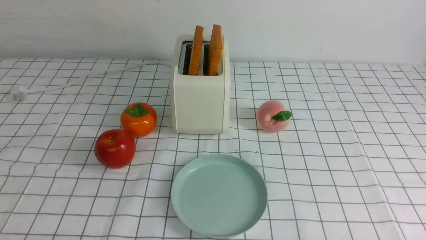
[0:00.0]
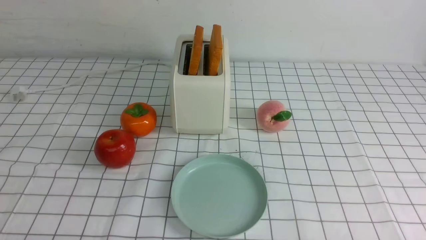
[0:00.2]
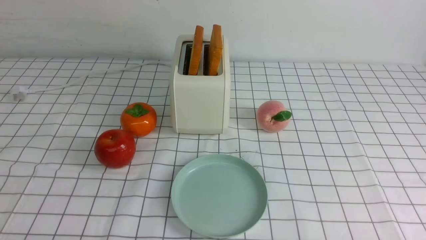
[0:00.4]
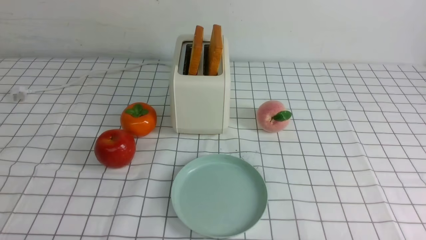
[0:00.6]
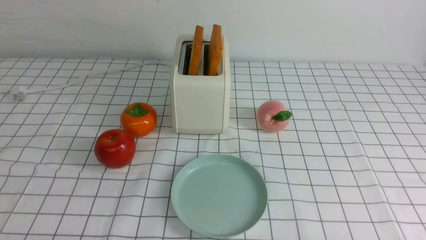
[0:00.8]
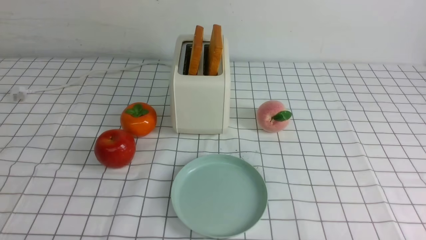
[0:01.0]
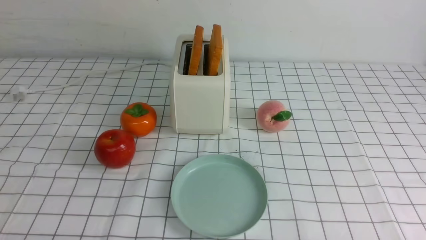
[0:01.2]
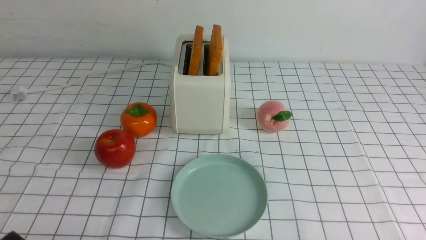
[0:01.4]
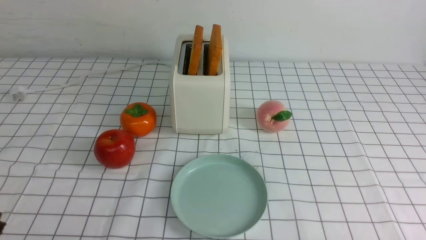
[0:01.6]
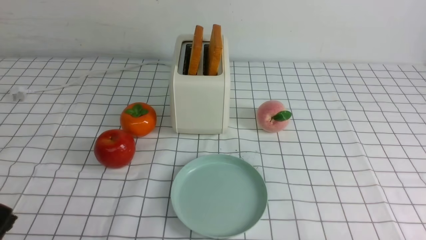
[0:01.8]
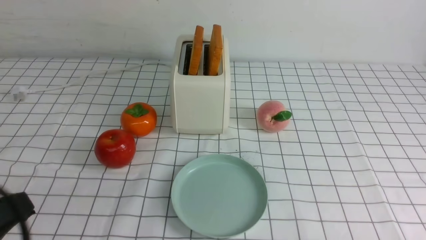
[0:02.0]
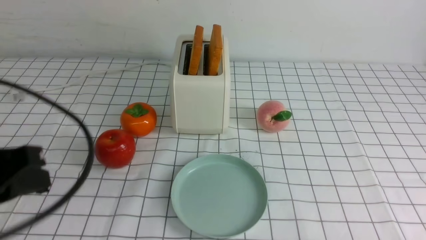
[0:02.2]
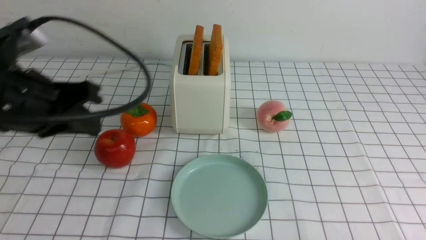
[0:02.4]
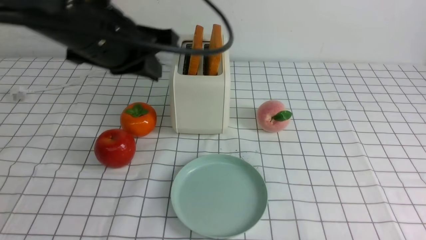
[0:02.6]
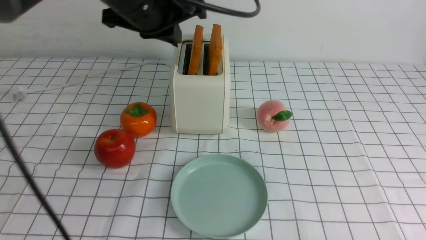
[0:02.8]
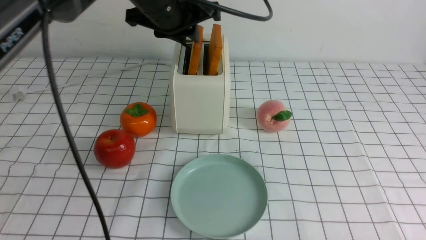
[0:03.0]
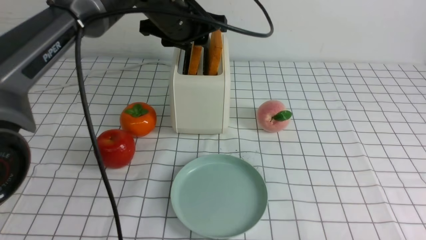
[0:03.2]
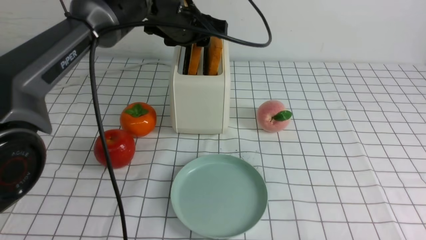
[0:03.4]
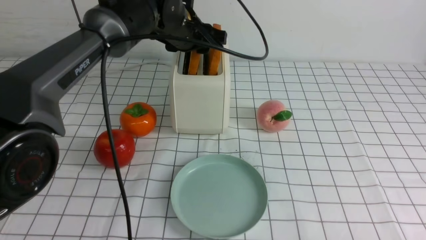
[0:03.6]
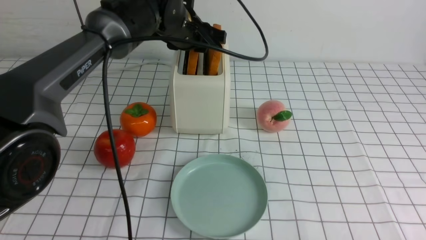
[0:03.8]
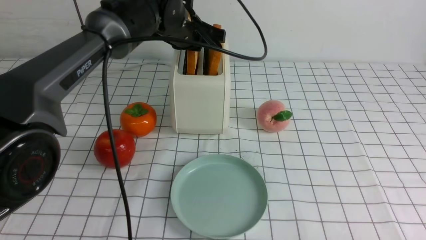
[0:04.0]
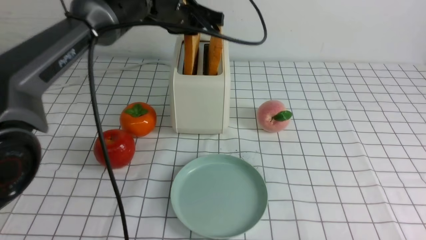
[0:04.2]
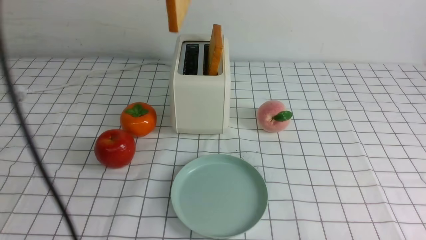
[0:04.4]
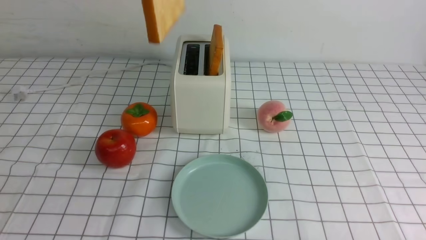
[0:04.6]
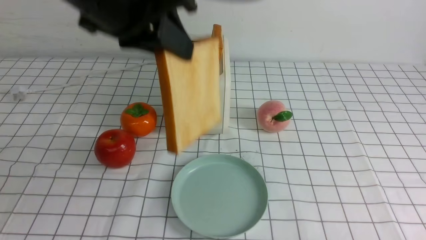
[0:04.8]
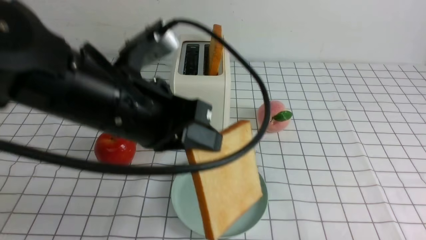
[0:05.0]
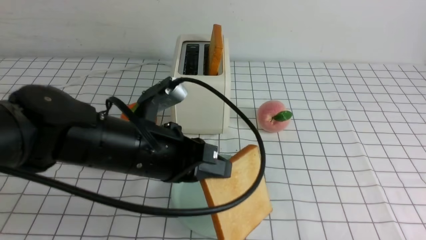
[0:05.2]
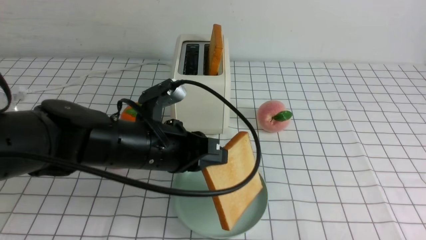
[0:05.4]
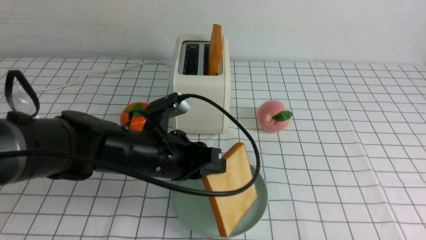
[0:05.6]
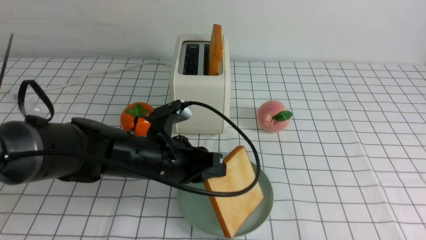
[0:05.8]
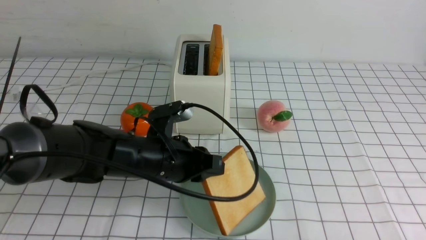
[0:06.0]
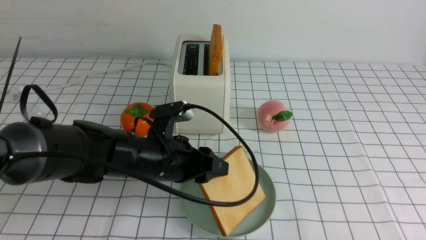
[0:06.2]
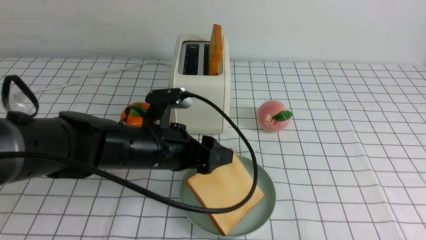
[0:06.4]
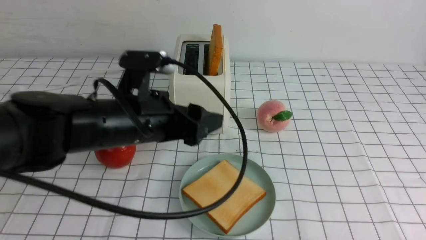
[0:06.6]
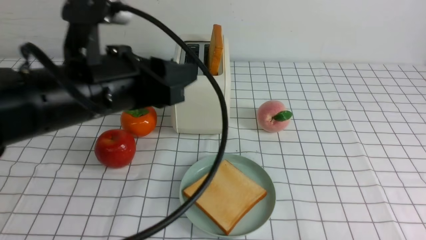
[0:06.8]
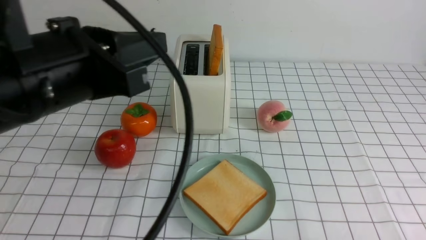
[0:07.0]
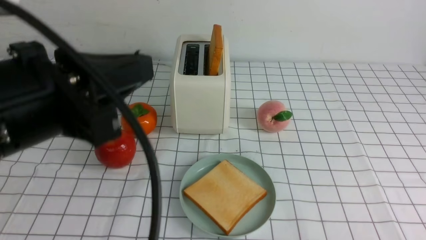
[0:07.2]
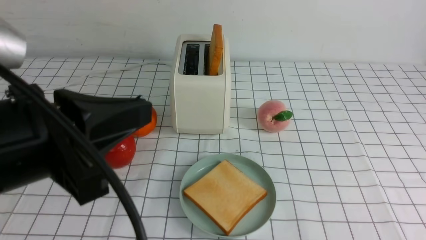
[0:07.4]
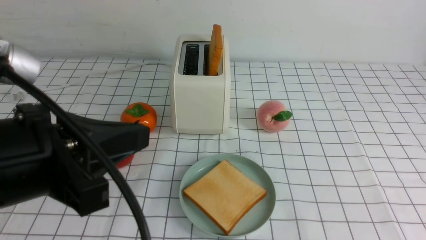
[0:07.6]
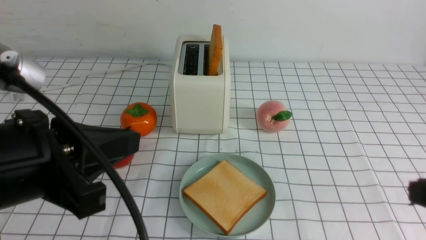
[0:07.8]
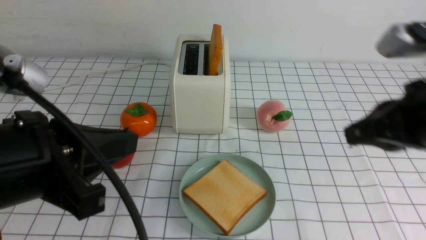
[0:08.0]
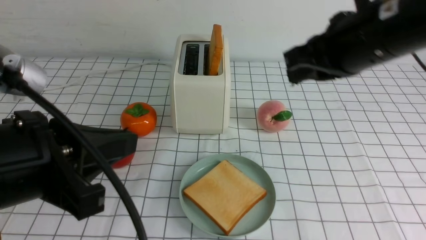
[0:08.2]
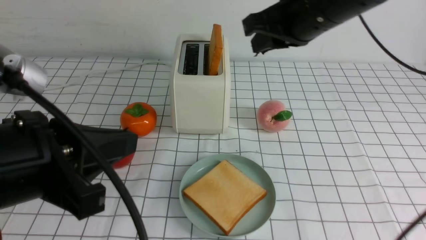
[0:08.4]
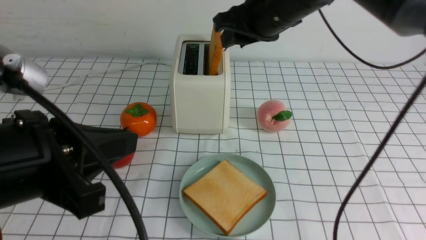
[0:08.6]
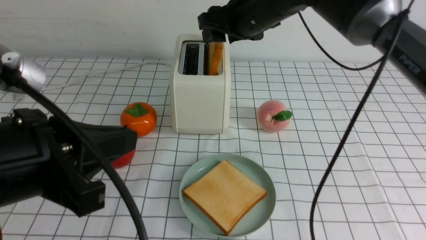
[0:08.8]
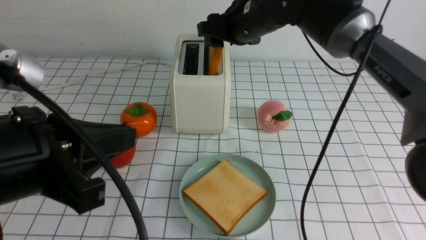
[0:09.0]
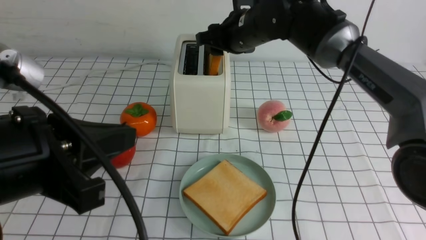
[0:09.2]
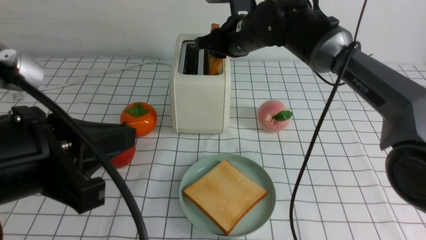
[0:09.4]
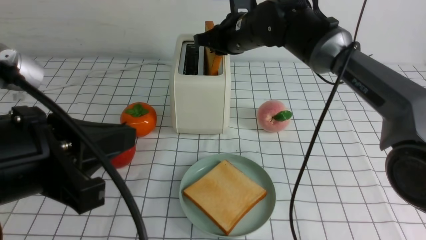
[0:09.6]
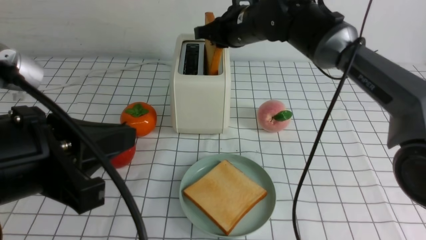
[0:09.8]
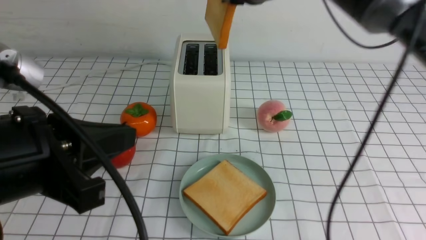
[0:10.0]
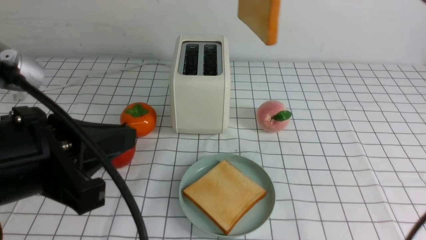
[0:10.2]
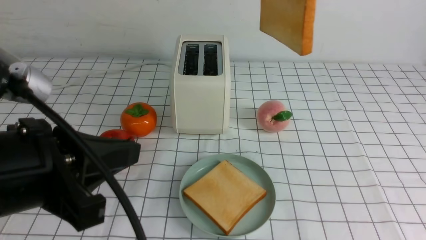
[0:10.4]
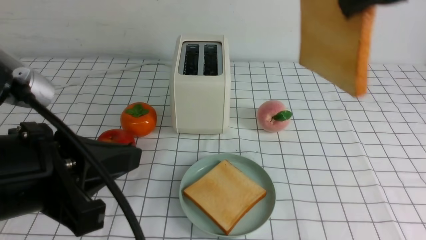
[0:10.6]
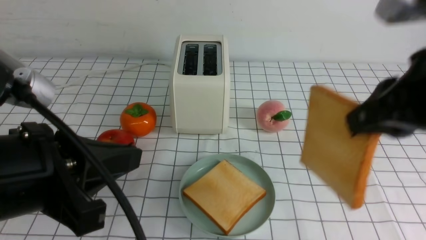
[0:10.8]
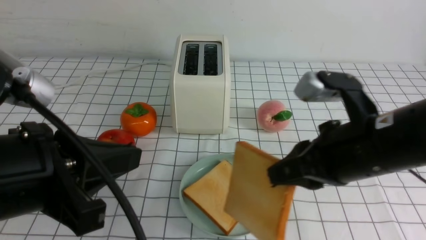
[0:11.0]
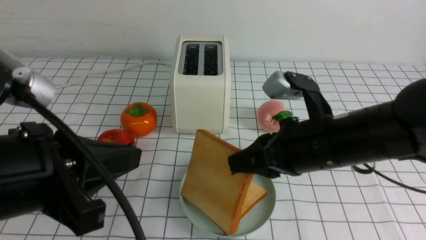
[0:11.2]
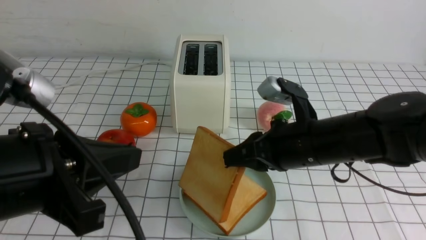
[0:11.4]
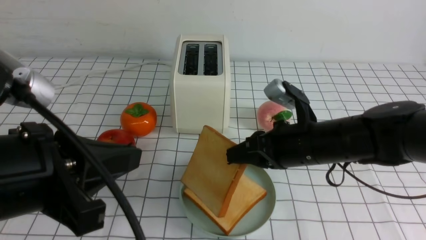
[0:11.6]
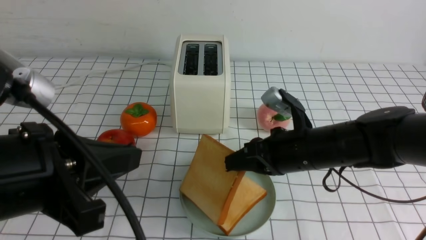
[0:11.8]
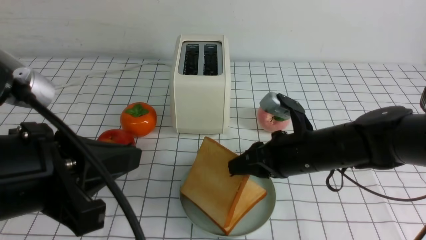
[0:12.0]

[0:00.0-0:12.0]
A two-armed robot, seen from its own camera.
Task of the whole recording: take toasted bread from bread machine on white checkered table place on plate.
Step, 0:00.0 to 0:04.2: use the left arm to take out a slice of bread.
Step, 0:04.4 to 0:06.4: use the left arm to put a slice of bread into the empty plate.
Step, 0:06.8 to 0:09.8: use the right arm to take out a slice of bread.
0:01.6 to 0:03.0: The left gripper is displaced forward, upward and to the right by roughly 40 cm, and closes, then reopens.
0:03.0 to 0:04.4: The left gripper travels upward by about 10 cm, and closes up.
0:04.4 to 0:06.0: The left gripper is displaced downward by about 25 cm.
0:06.0 to 0:07.6: The left gripper moves upward, backward and to the left, some 25 cm, and closes its fingers. Meanwhile the right gripper is displaced upward by roughly 10 cm.
0:07.6 to 0:09.0: The right gripper is displaced forward and to the left by about 40 cm, and opens up.
0:09.0 to 0:10.4: The right gripper is displaced backward, upward and to the right by some 25 cm, and closes up.
0:10.4 to 0:12.0: The right gripper is displaced downward by about 30 cm.

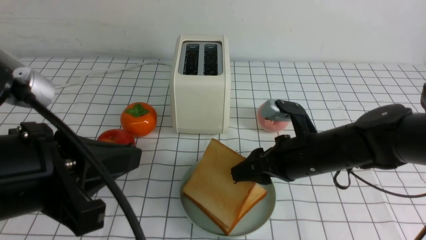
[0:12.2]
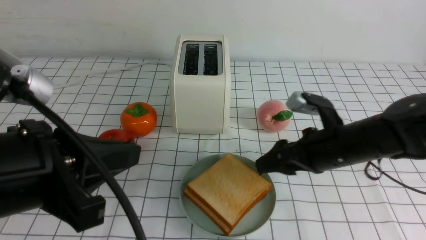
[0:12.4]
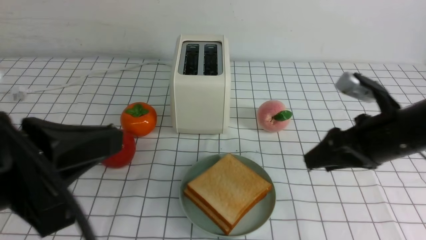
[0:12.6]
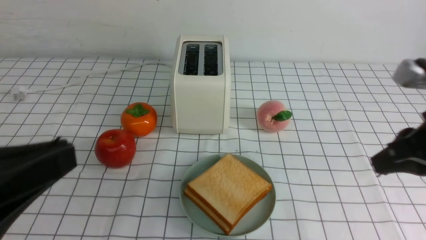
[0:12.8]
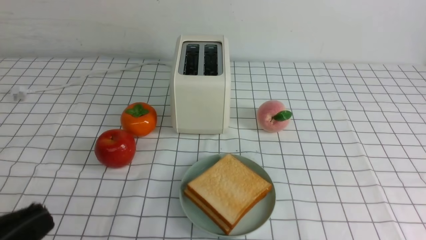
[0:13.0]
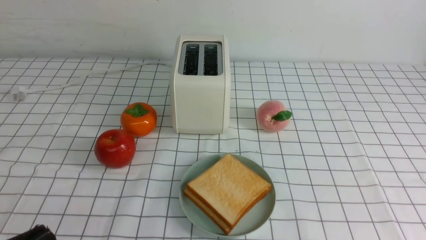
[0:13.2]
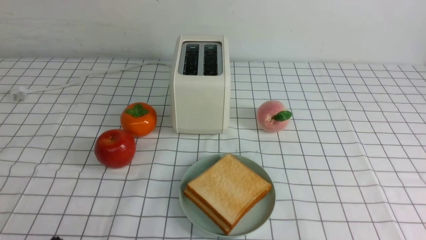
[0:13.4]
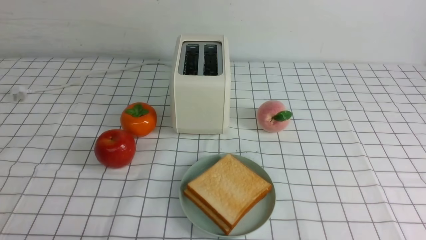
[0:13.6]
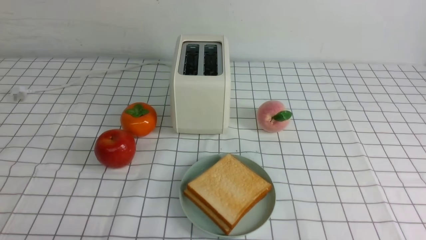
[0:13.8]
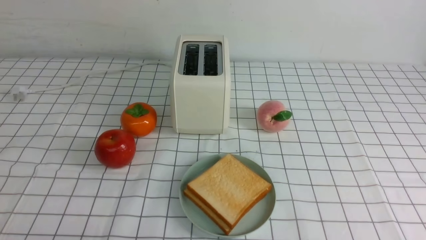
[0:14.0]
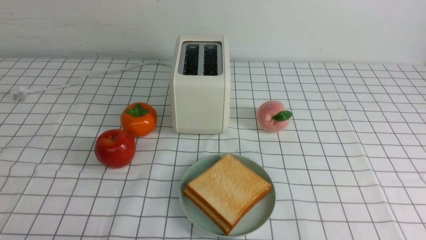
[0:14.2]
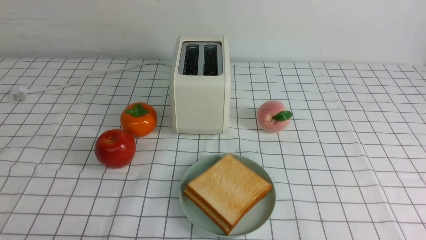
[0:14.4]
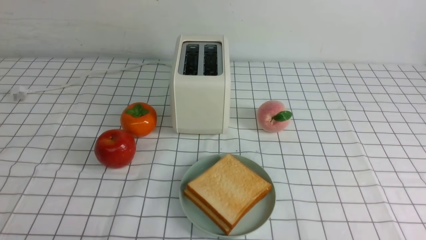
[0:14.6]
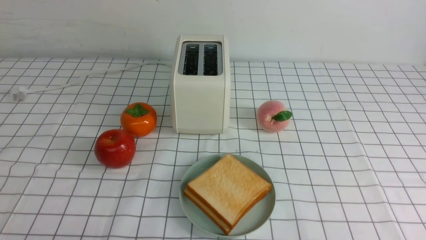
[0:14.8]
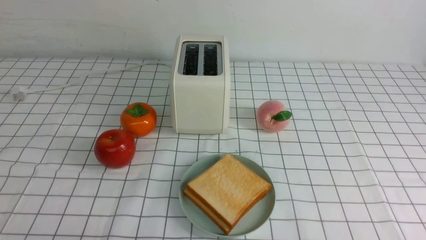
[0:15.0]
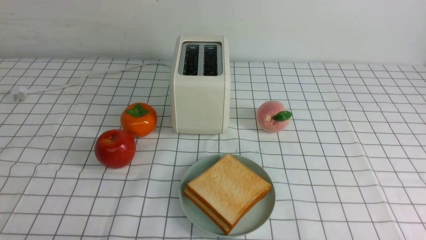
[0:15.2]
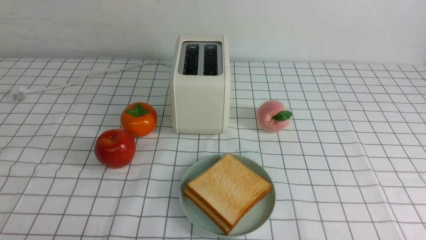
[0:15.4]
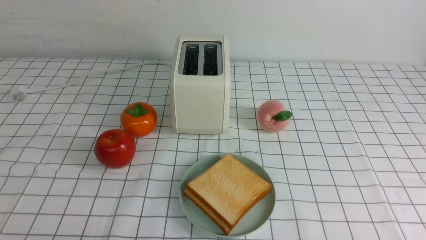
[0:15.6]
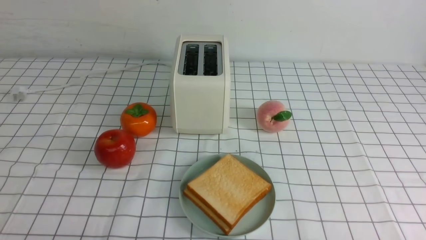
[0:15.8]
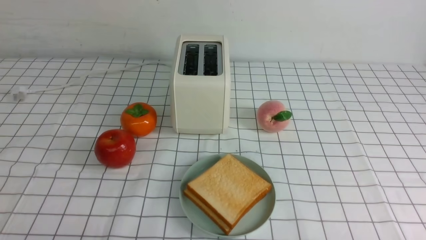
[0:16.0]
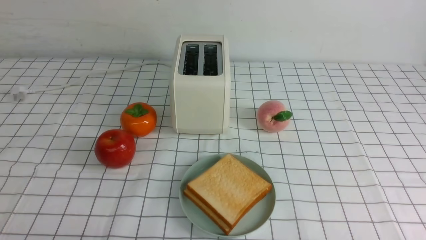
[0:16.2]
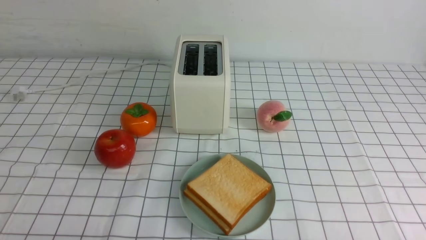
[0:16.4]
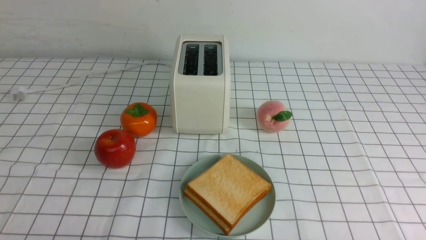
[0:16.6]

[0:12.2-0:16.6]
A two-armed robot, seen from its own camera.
Task of the whole recording: take toasted bread from bread machine on white checkered table place on plate.
0:12.2 to 0:13.6: The left gripper moves downward, backward and to the left, approximately 15 cm; the right gripper travels backward and to the right by roughly 35 cm, and closes its fingers.
